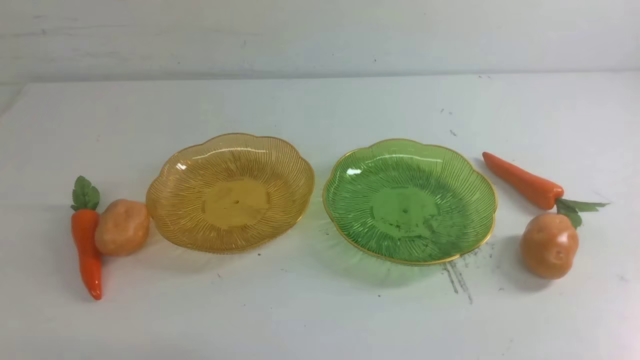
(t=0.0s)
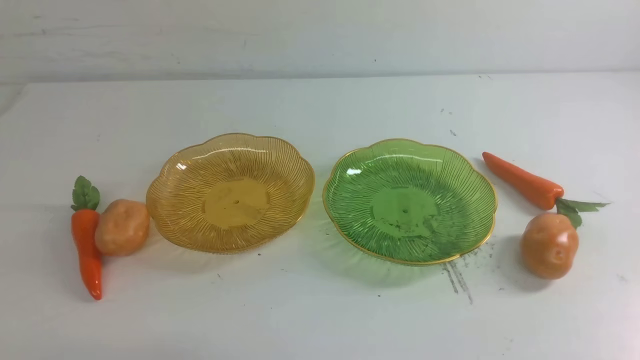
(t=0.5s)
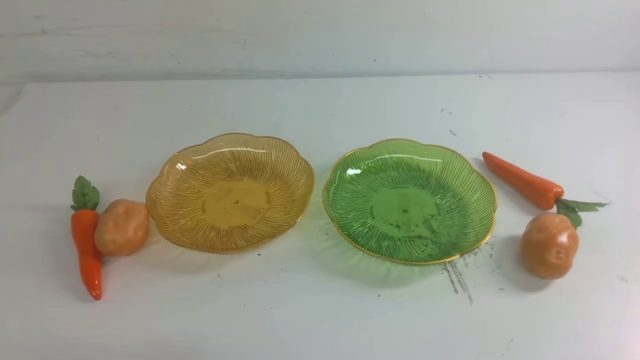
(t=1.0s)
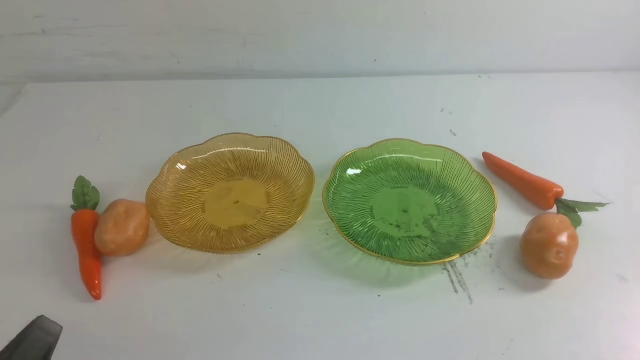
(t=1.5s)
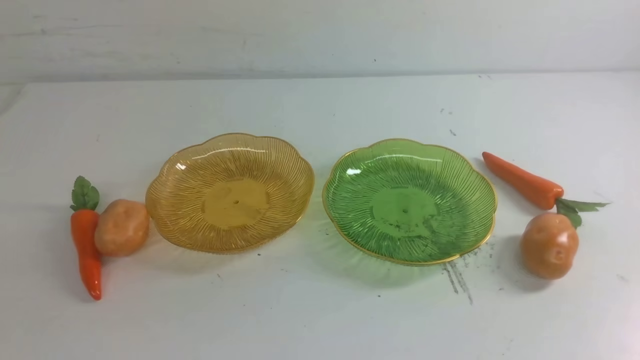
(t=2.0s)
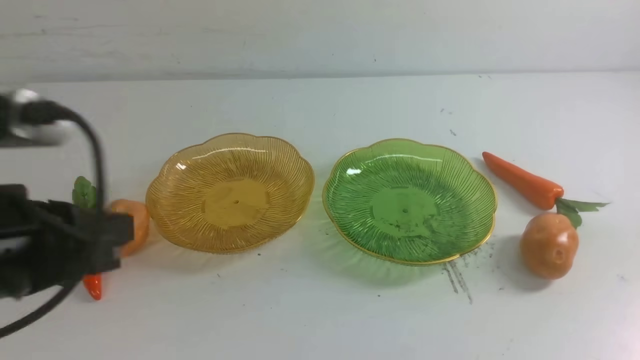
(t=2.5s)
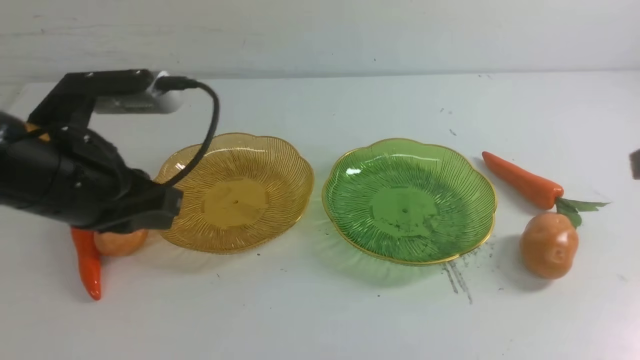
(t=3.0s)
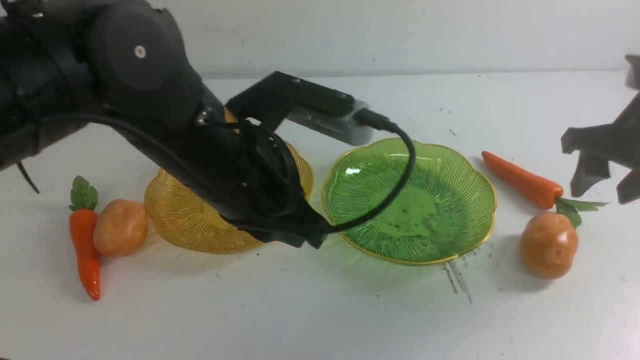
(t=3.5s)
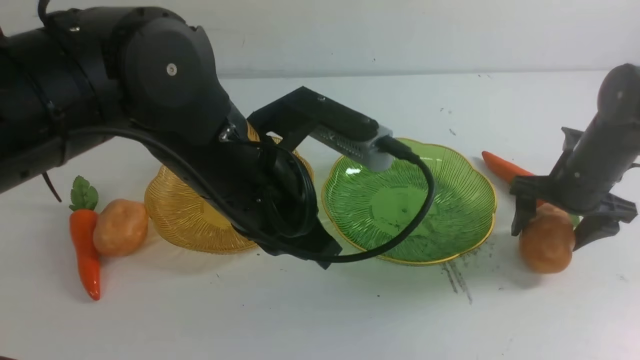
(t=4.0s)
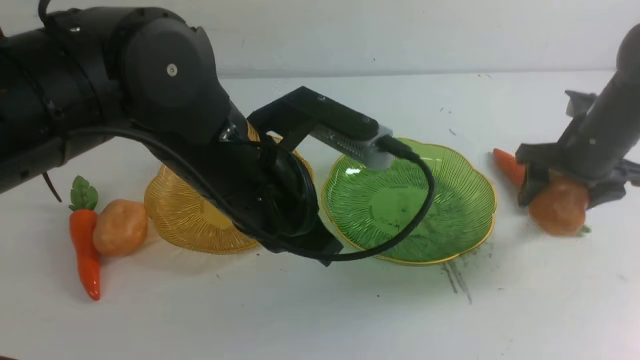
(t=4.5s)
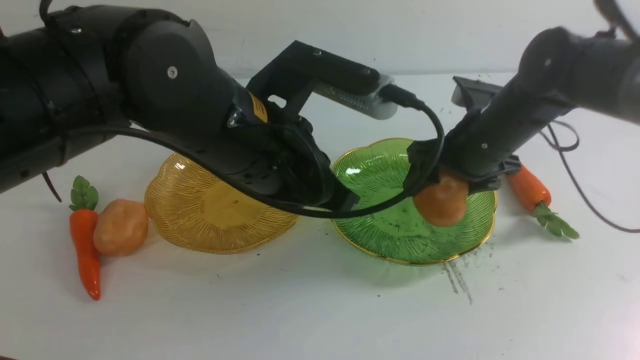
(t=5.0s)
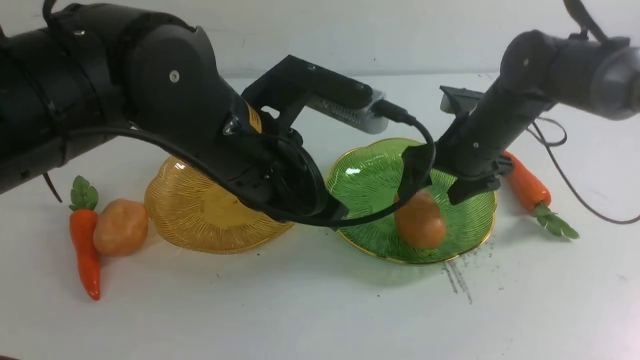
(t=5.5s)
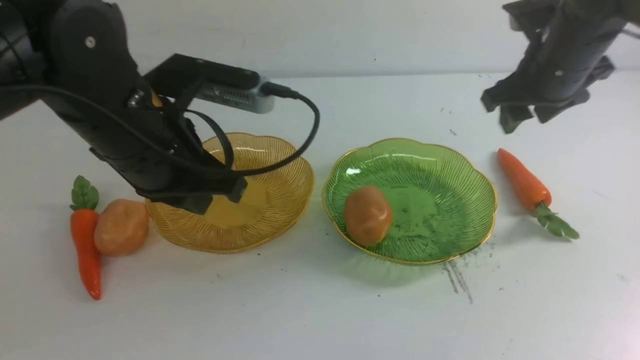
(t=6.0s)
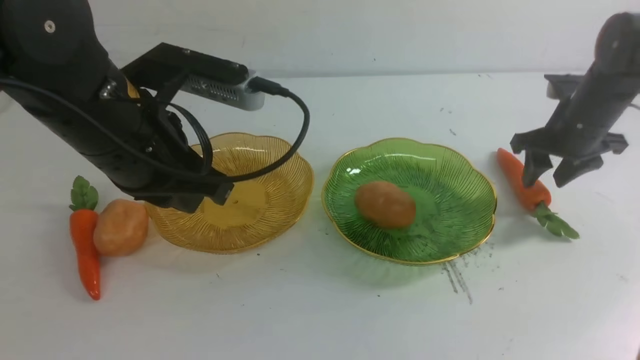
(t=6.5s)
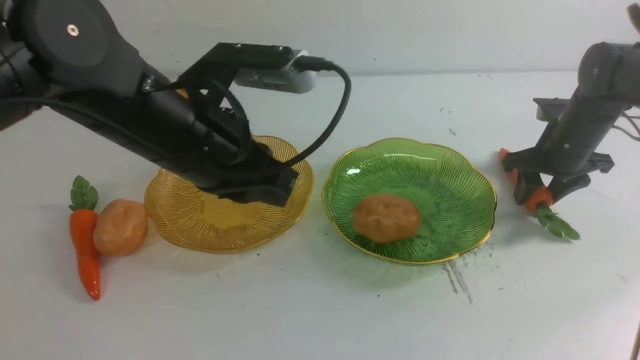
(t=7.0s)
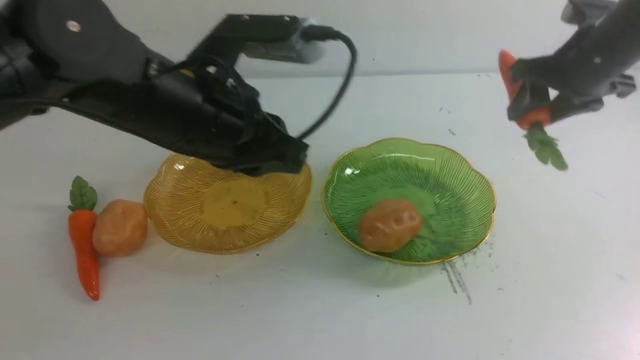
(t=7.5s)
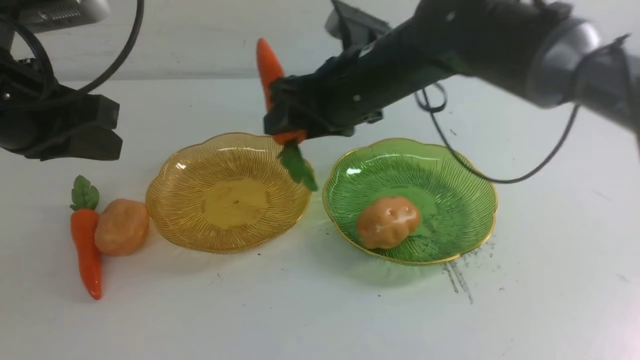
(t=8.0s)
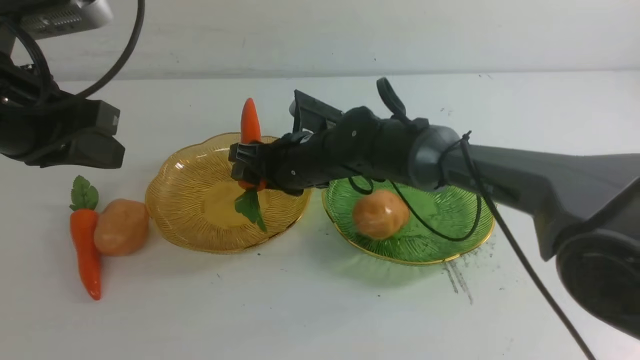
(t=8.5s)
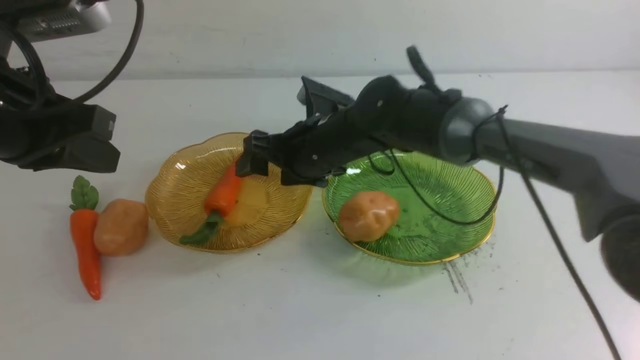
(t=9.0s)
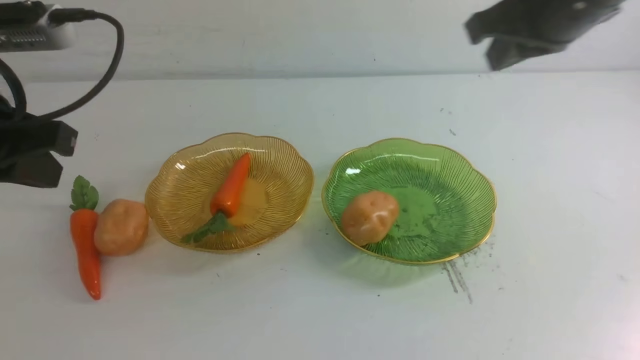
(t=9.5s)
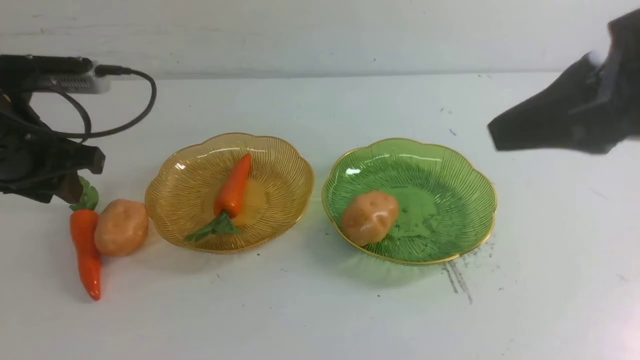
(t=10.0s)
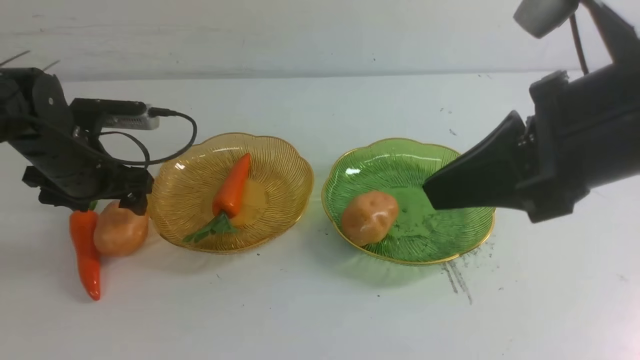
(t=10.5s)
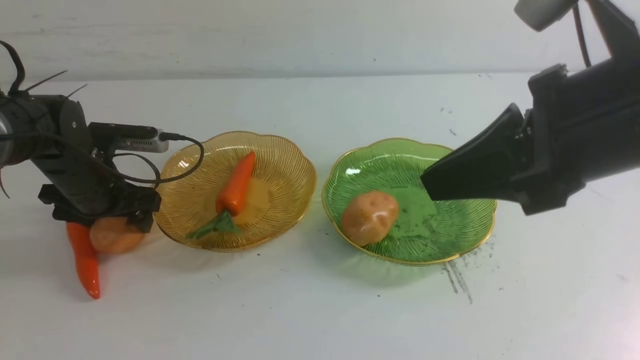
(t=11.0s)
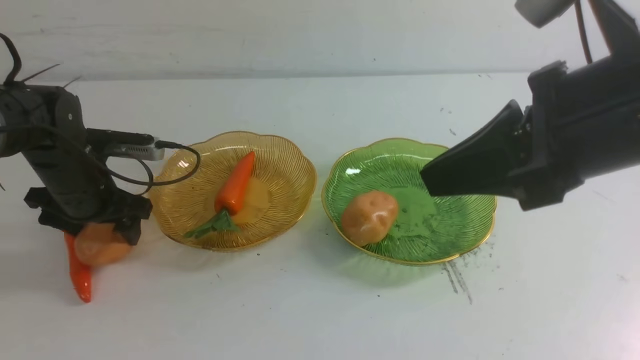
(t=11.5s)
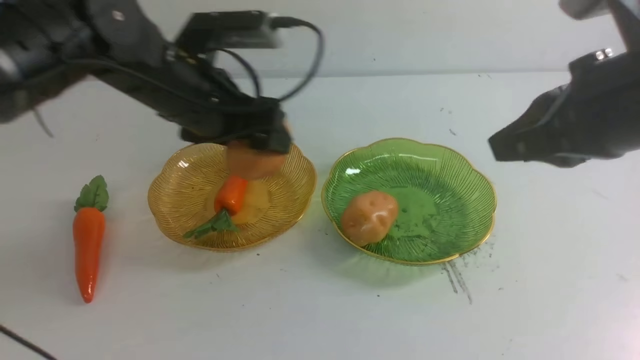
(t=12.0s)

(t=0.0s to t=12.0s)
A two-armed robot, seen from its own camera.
Step, t=0.0s - t=5.5s: Grab a potato with your right arm and put it on the right plate.
Step, t=6.0s - t=9.0s: use the right arm to grab a carrot and put it into the left plate.
t=2.0s - t=4.0s: The left gripper heads to the right and forward, covering about 30 cm; the right gripper shifts some 35 cm forward, and opens up.
t=4.0s - t=6.0s: The left gripper shifts some 5 cm to the left; the right gripper moves upward and to the left, approximately 10 cm, and closes.
t=6.0s - t=8.0s: The left gripper travels to the left by roughly 10 cm, while the right gripper heads to the left, covering roughly 20 cm.
t=8.0s - t=10.0s: The left gripper goes approximately 5 cm downward, and opens up, while the right gripper goes some 25 cm backward, to the right and upward, and closes its fingers.
t=10.0s - t=12.0s: The left gripper heads to the right, covering roughly 15 cm, and opens its fingers.

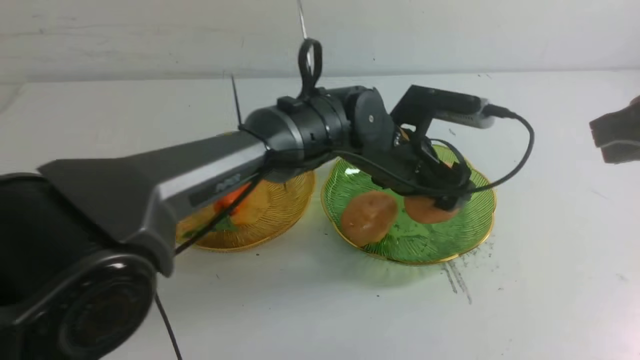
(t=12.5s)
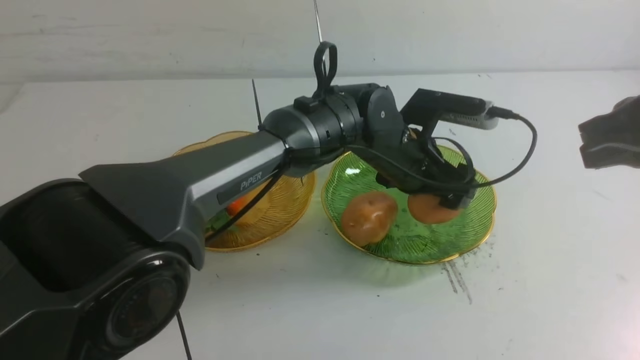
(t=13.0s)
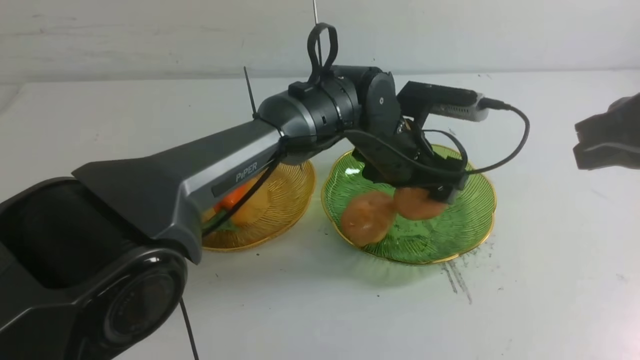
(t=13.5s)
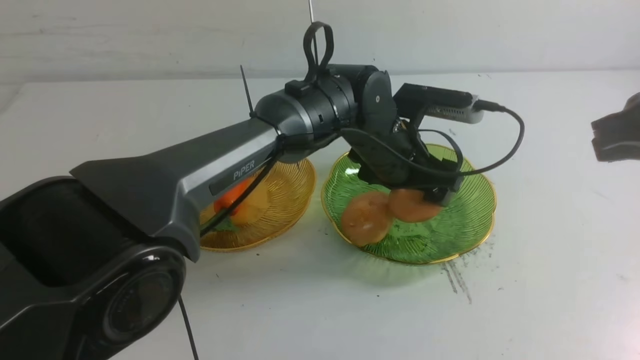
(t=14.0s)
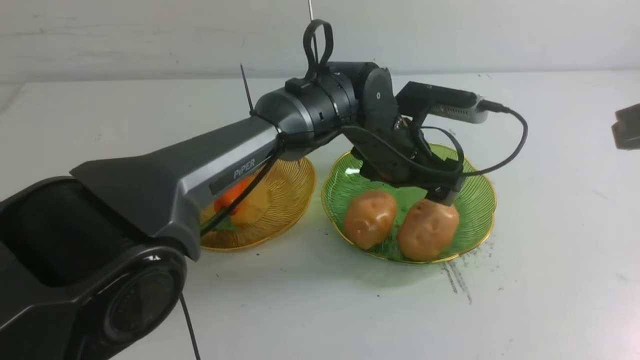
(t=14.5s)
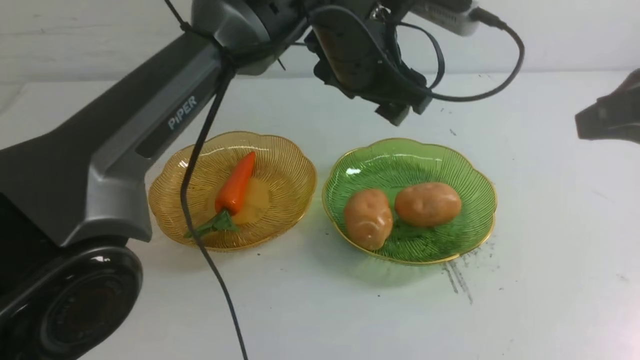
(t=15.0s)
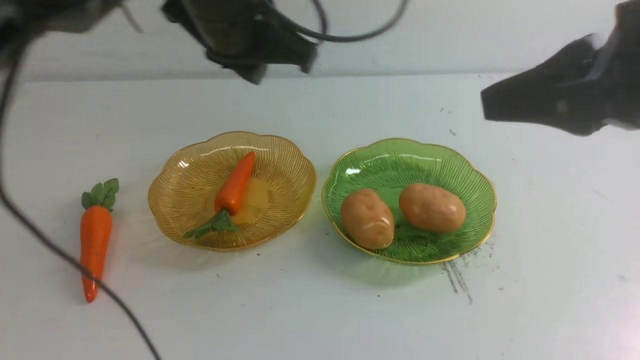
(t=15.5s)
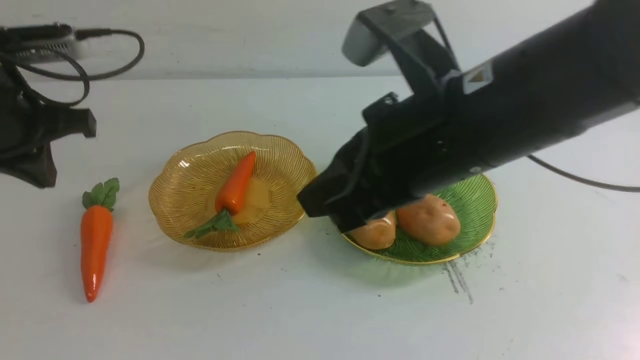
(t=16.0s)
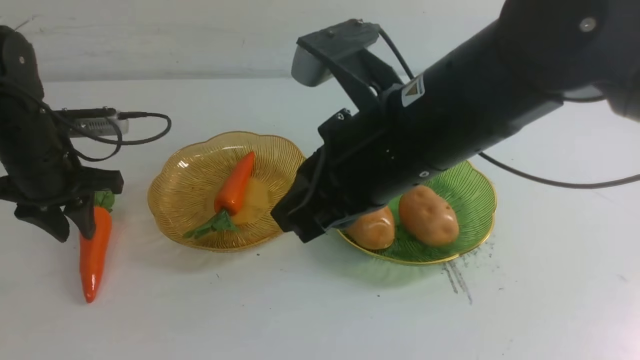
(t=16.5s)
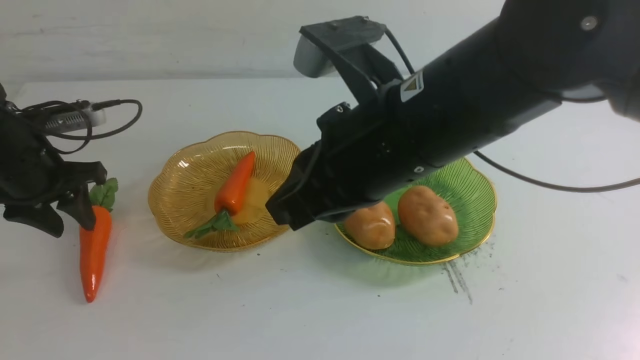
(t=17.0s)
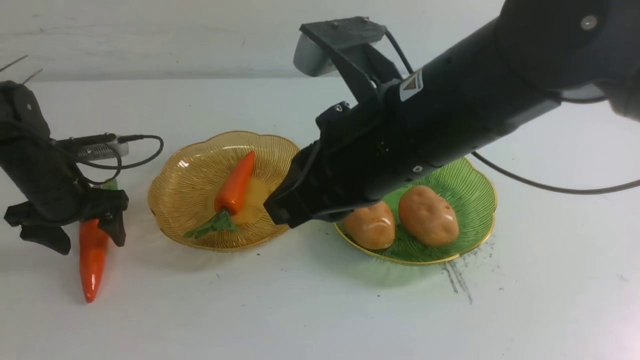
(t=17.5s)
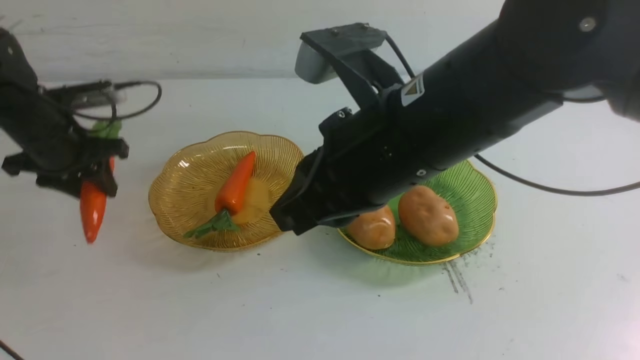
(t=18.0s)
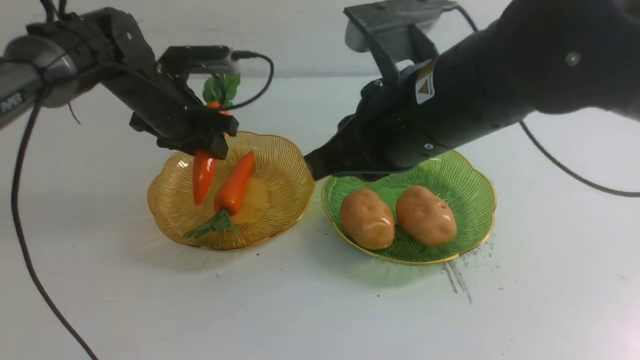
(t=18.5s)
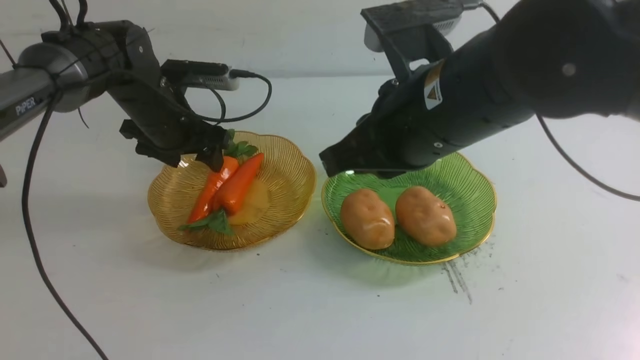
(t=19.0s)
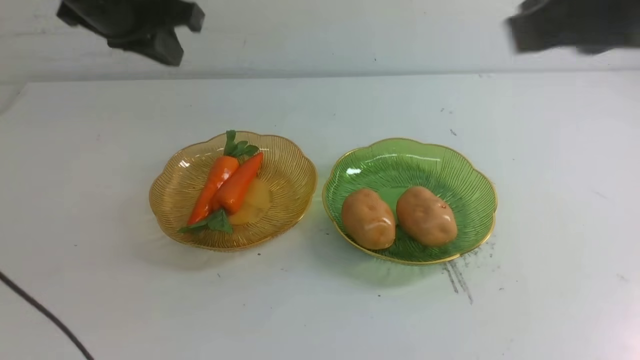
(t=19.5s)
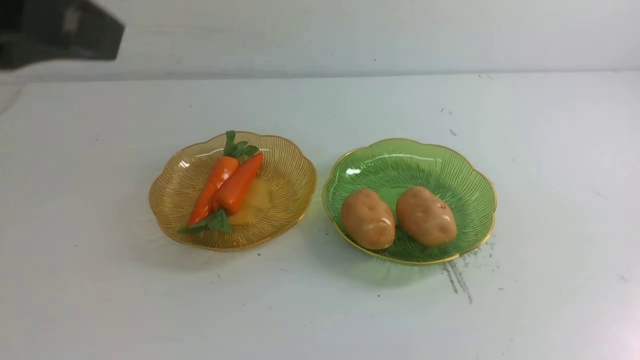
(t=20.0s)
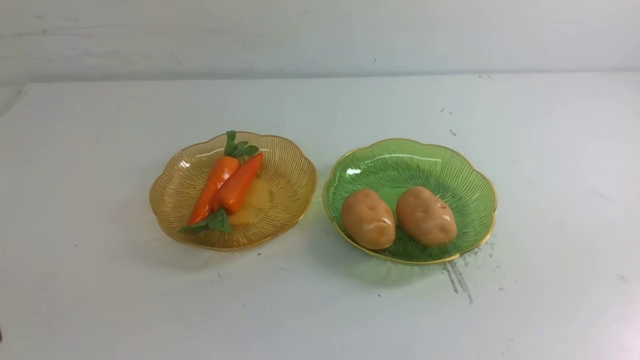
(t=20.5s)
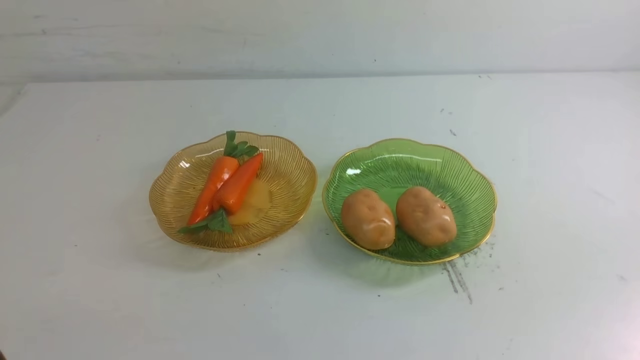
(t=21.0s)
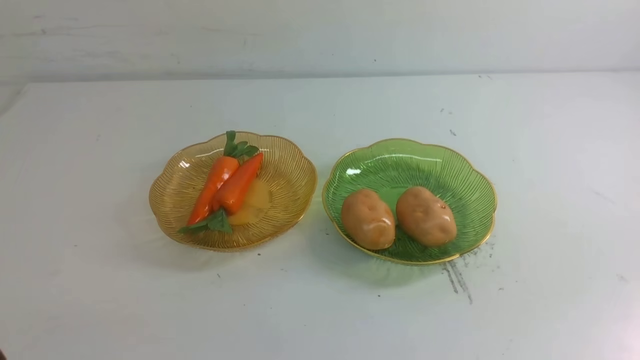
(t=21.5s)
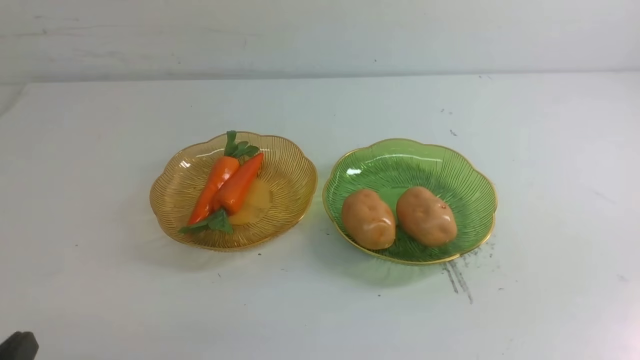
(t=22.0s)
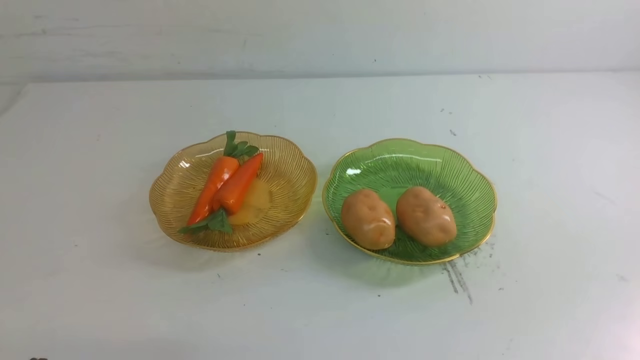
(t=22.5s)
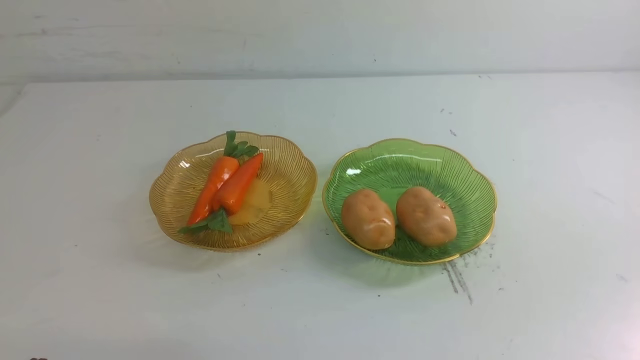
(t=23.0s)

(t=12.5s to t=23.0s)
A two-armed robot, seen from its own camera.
Step, t=12.5s - t=14.5s: Grab a potato with your left arm and put it on the right plate.
Step, t=15.0s - t=19.0s: use the left arm to grab a carrot and put it into the left plate.
t=12.5s - t=14.5s: The grippers stay close to where they were, moving slightly.
t=14.5s - t=16.5s: The right gripper travels to the left by about 20 cm. The left gripper goes some 35 cm to the left, and closes its fingers.
t=16.5s - t=19.0s: The left gripper is displaced to the right and forward by about 15 cm, and opens its fingers.
t=19.0s - t=21.0s: The left gripper heads backward, covering approximately 40 cm, and closes up. The right gripper shifts roughly 35 cm to the right and backward.
